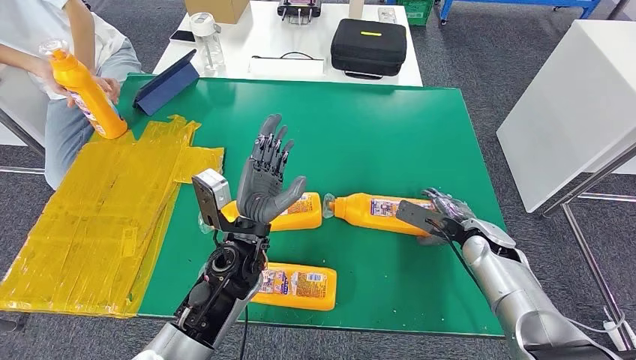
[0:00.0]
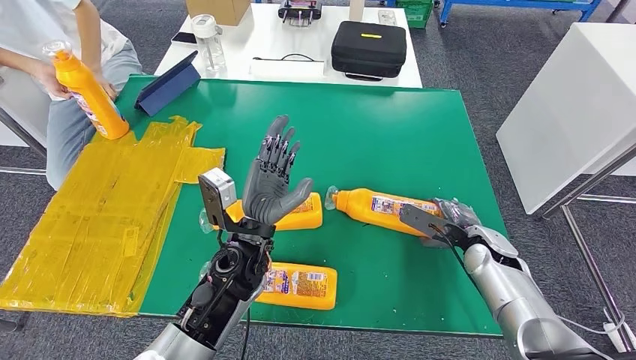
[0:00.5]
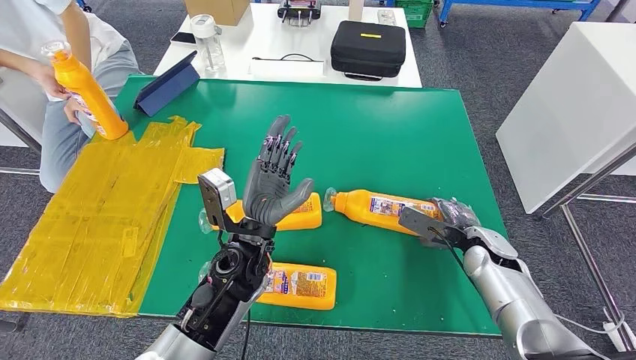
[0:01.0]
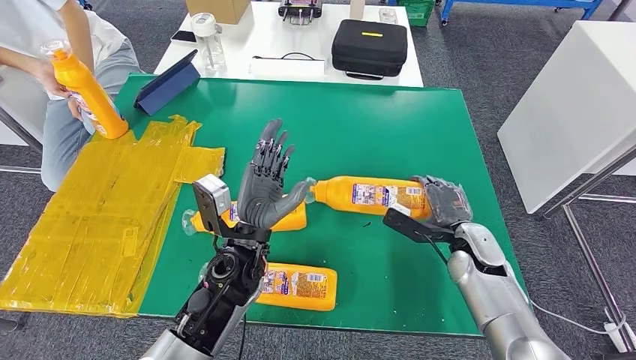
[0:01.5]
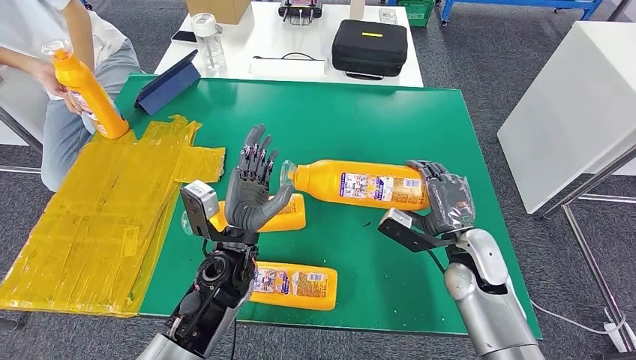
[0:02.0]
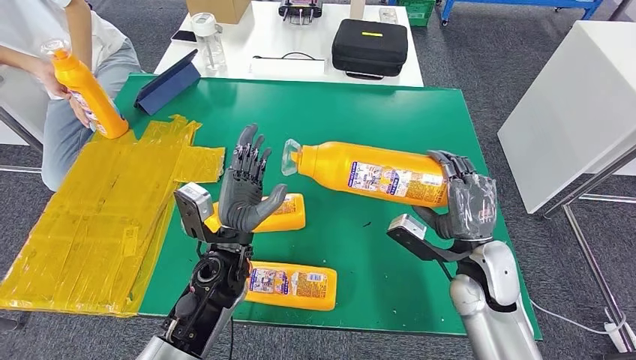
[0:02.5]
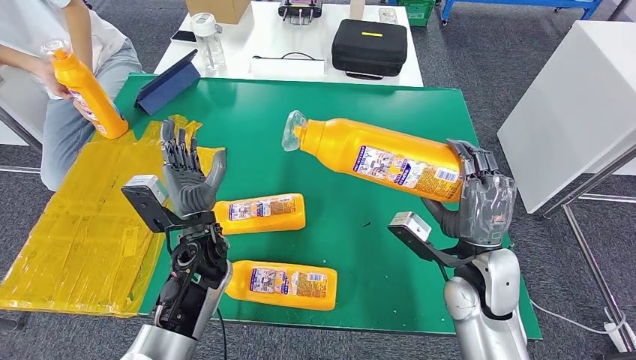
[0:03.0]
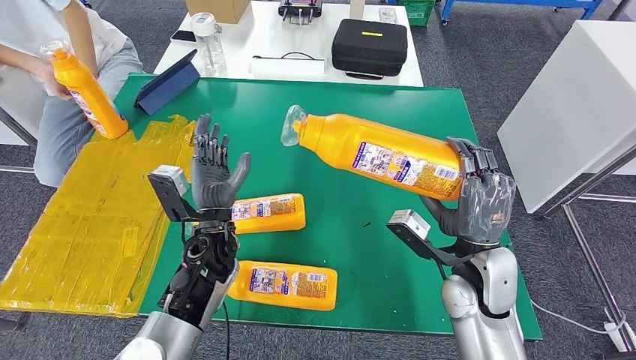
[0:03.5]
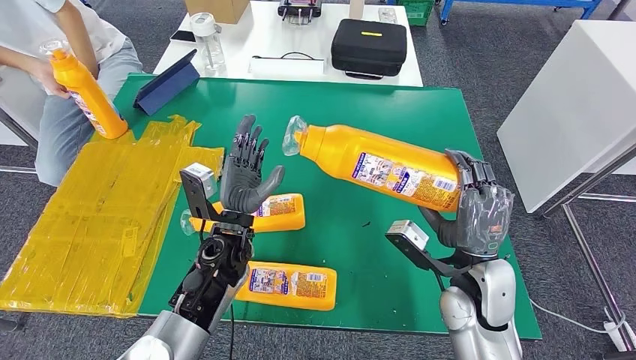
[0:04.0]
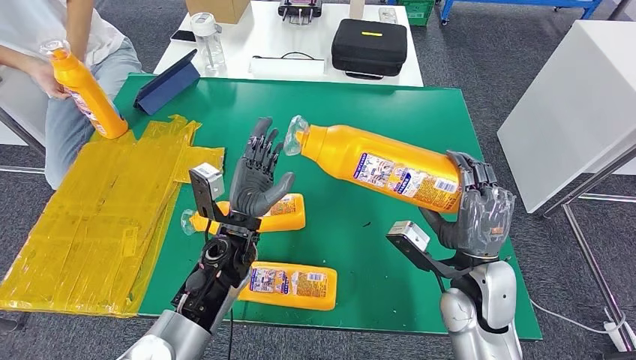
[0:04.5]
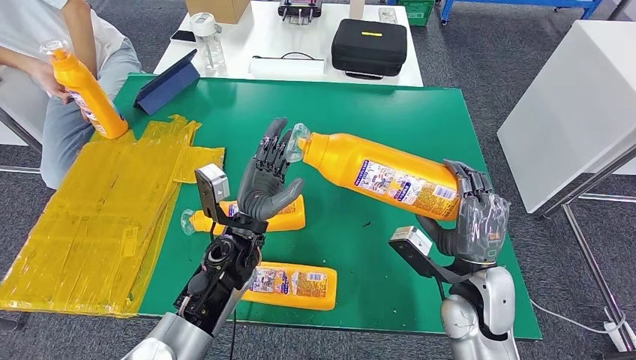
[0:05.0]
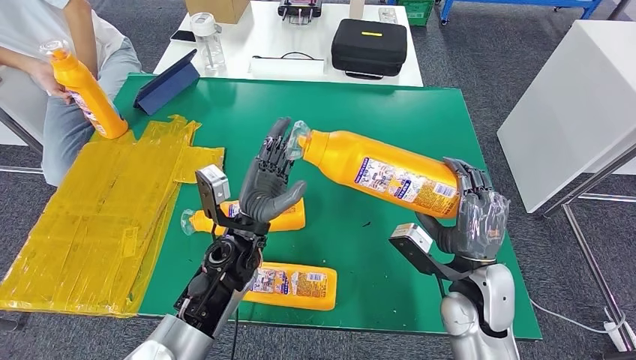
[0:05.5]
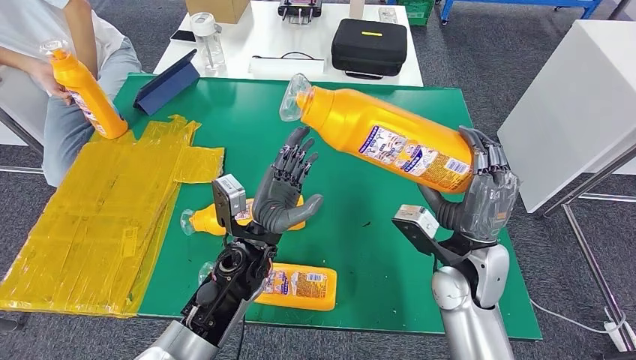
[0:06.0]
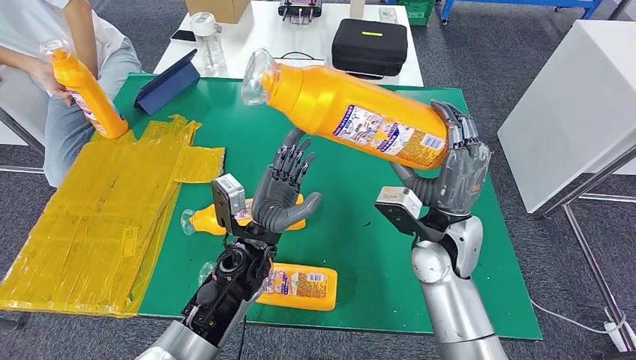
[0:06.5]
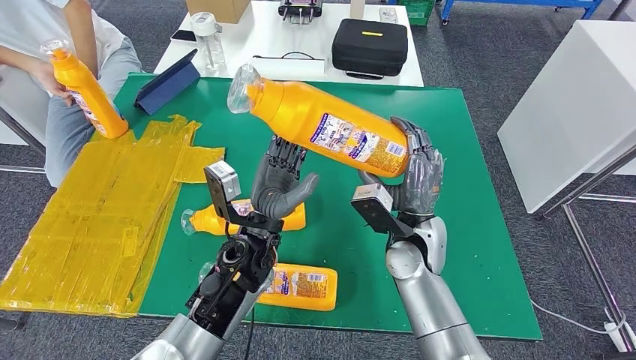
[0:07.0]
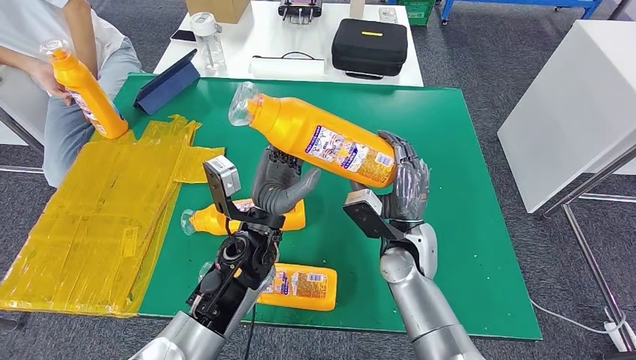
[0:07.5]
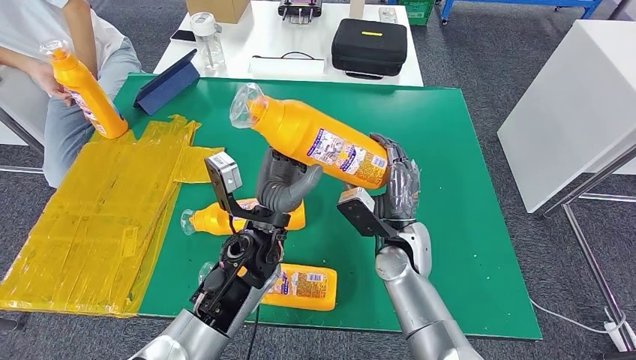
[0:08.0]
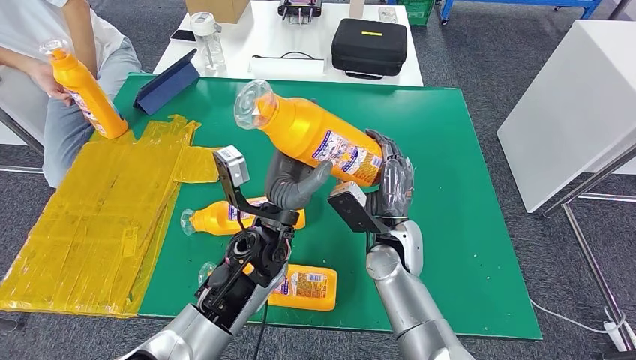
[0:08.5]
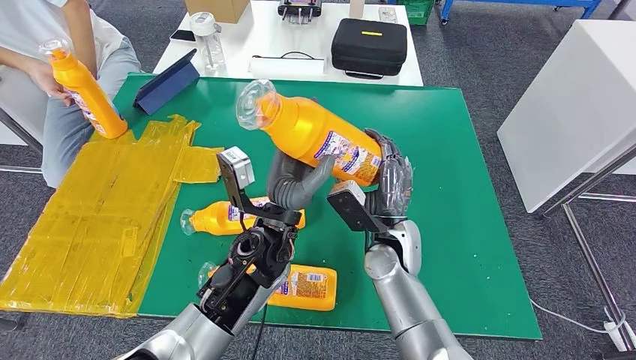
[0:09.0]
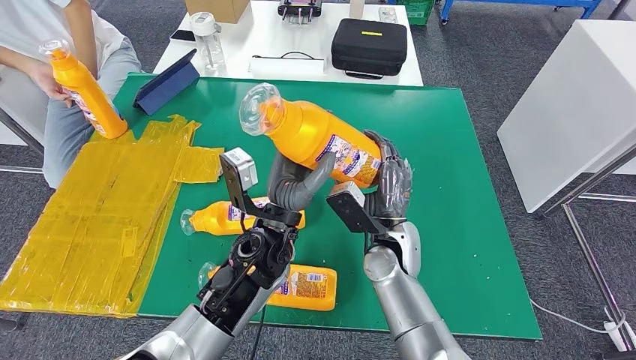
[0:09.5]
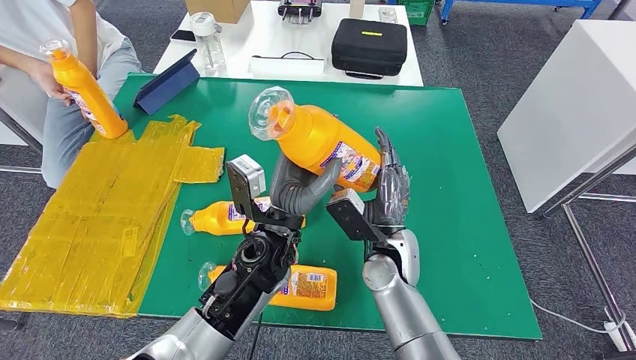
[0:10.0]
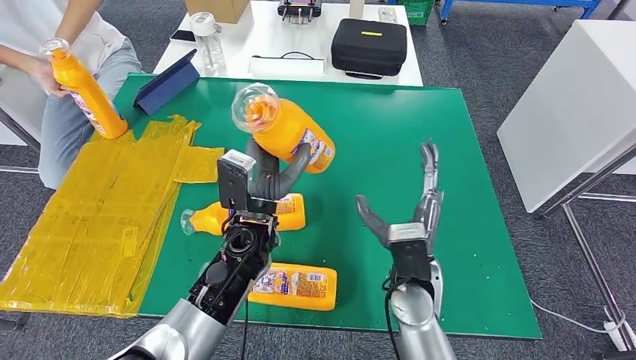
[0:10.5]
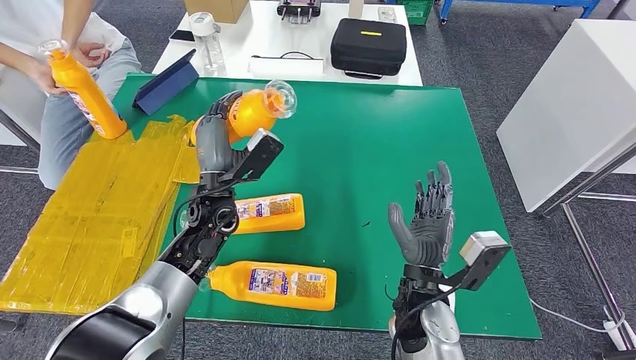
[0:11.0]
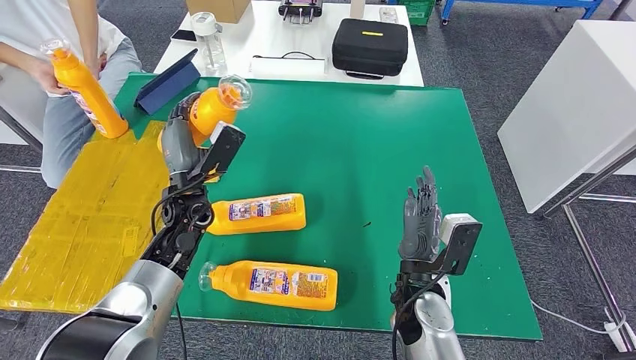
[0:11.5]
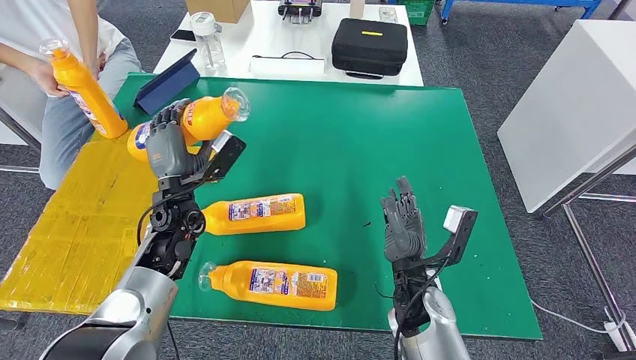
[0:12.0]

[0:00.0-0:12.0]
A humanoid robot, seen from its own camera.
Step, 0:00.0 to 0:04.5: Pick up the bottle from the table.
0:00.0 to 0:02.0: The right hand shifts approximately 5 cm to the left.
0:02.0 to 0:04.0: The right hand shifts by roughly 5 cm.
0:04.0 to 0:06.0: The hands stay close to where they were, moving slightly.
0:06.0 to 0:08.0: The right hand shifts about 10 cm to the left.
0:08.0 to 0:10.0: The hands stay close to where they were, moving slightly.

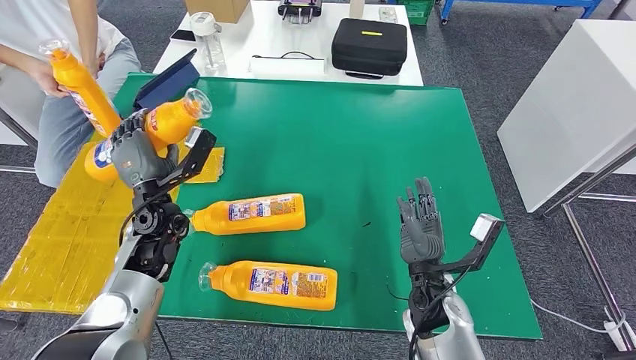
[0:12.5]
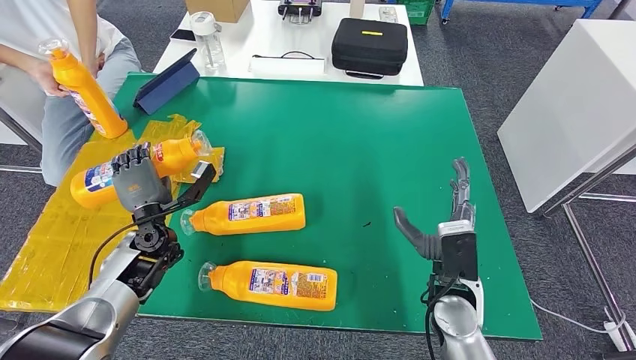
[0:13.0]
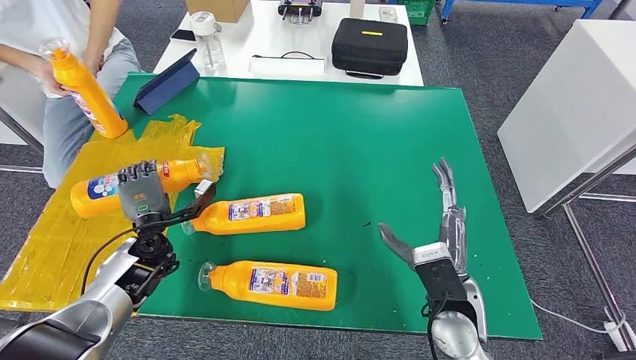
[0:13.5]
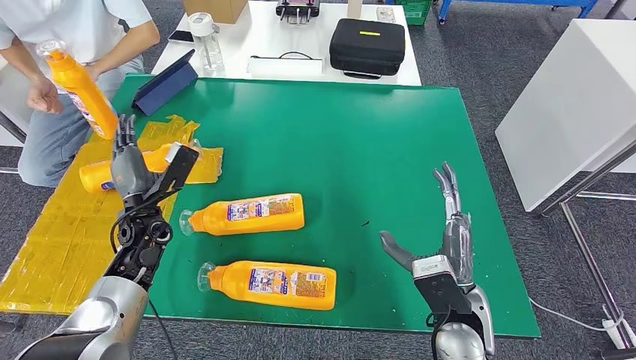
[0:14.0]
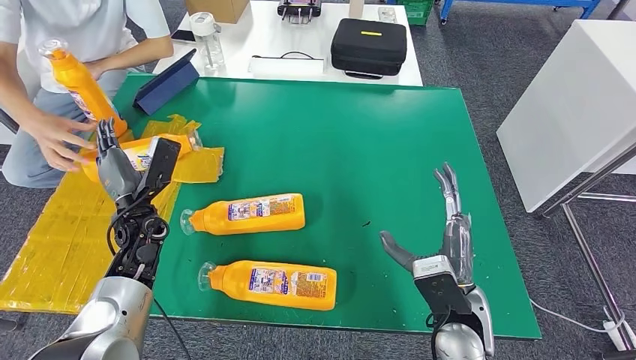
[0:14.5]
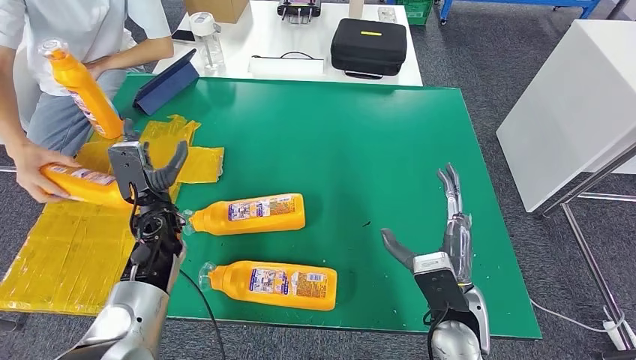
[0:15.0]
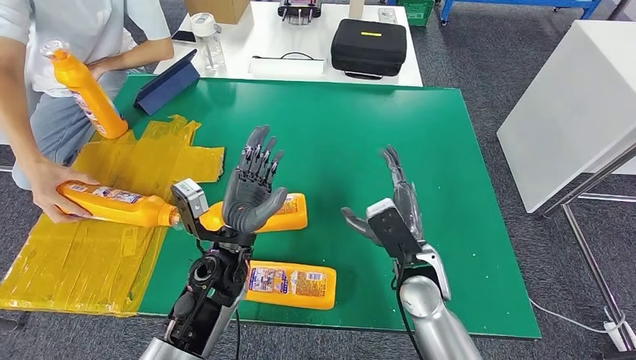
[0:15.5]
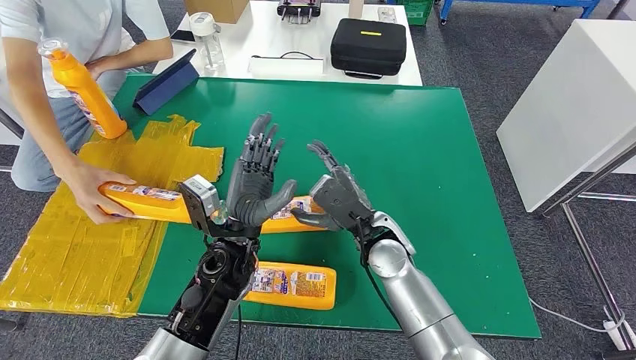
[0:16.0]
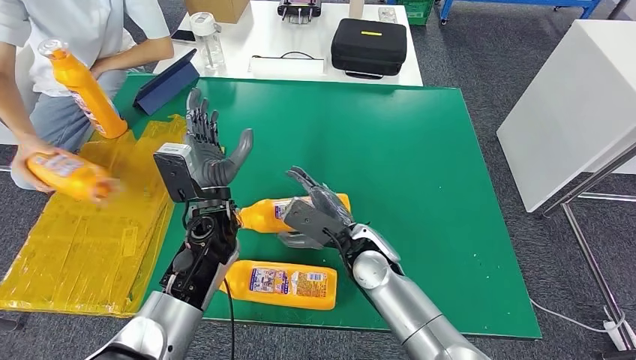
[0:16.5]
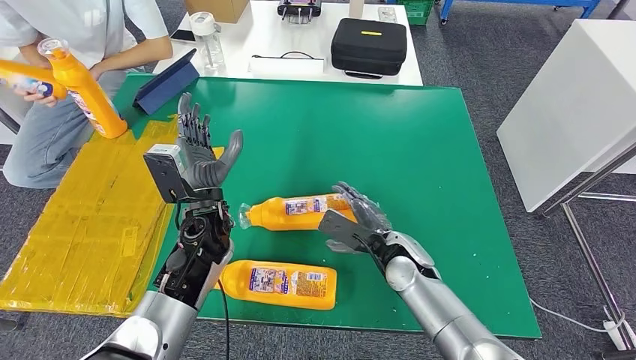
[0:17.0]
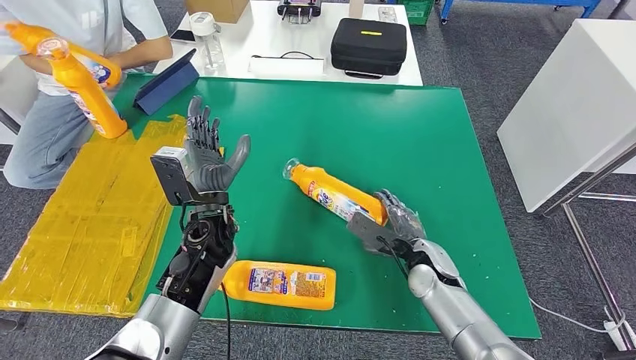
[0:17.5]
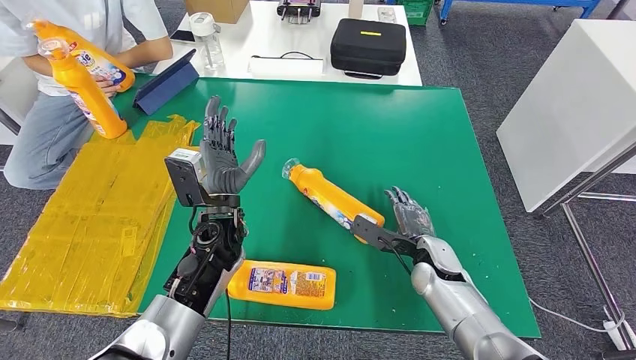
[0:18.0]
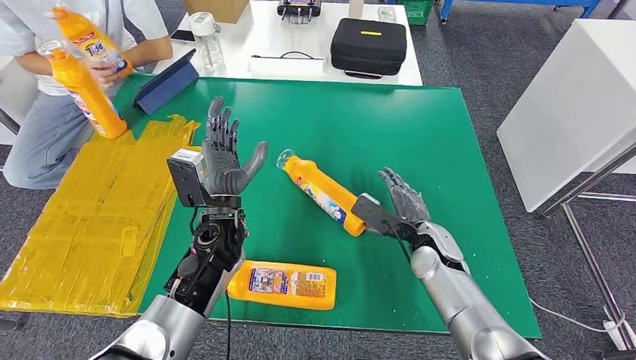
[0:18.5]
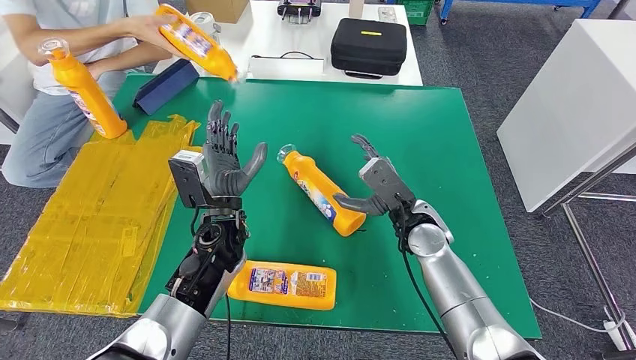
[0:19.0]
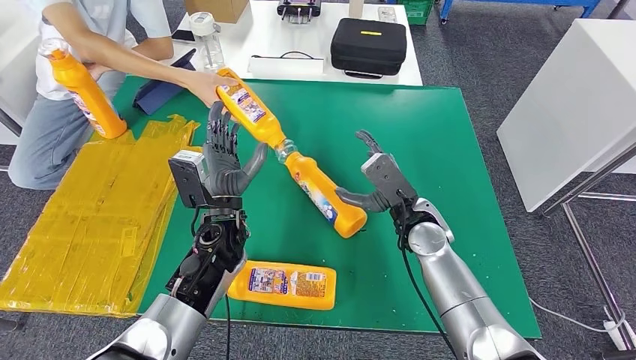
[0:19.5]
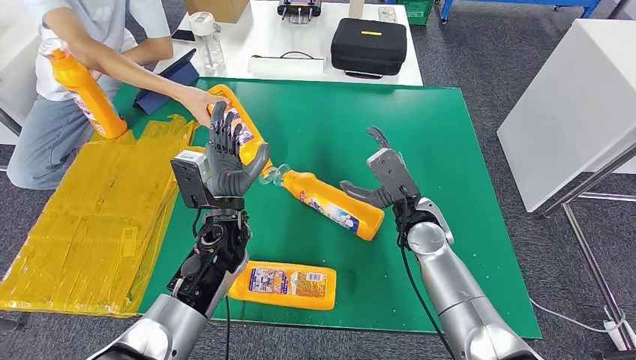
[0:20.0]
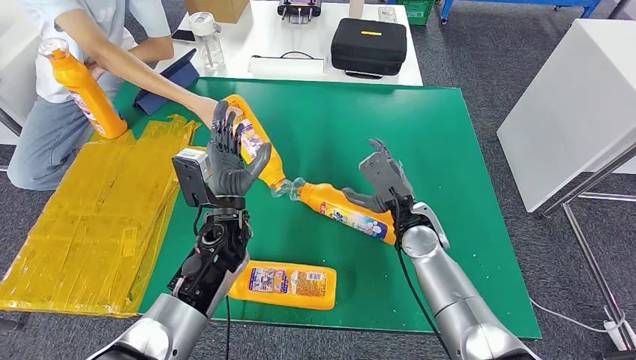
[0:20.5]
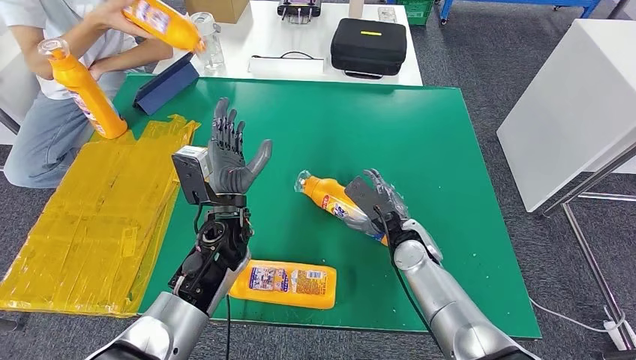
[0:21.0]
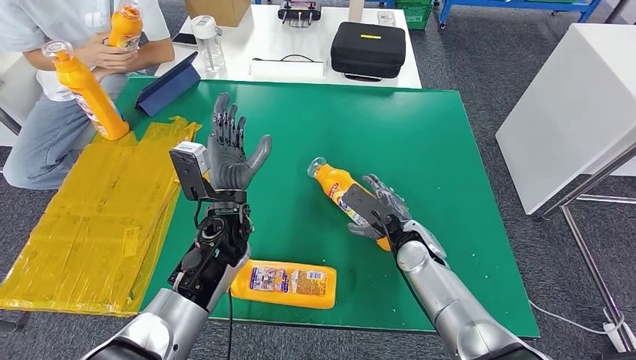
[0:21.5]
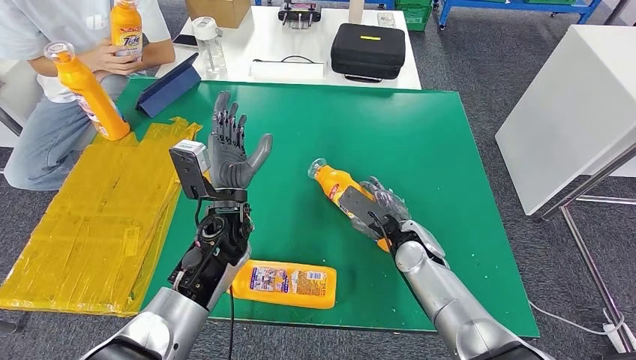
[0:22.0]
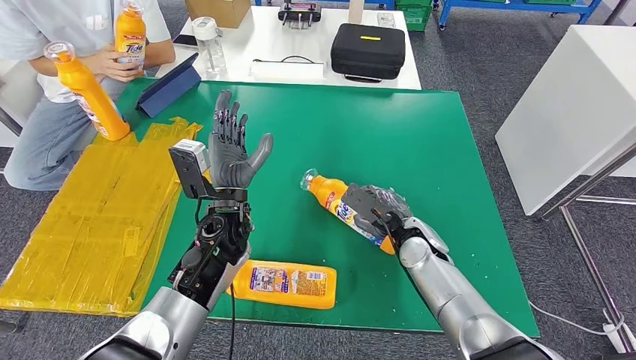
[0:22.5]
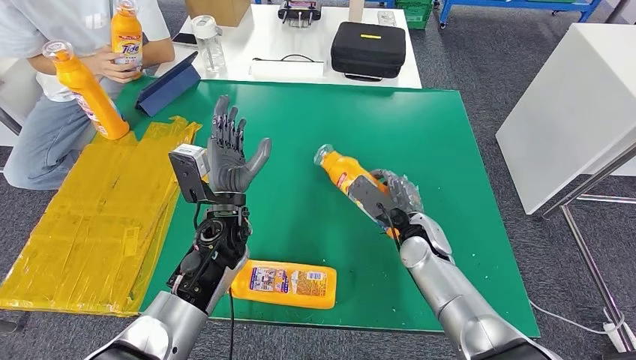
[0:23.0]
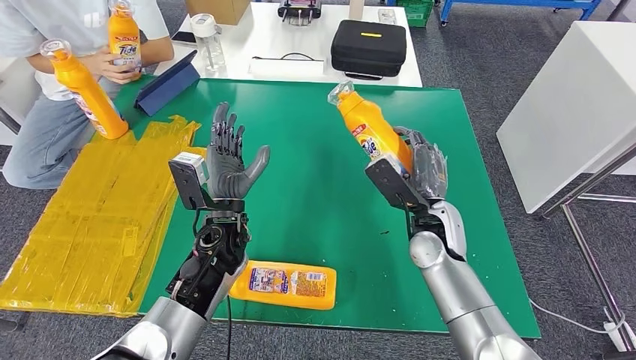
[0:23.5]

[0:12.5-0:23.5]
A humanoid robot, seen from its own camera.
Step, 0:12.5 to 0:15.5: Flip the bottle to face forward.
0:12.5 to 0:14.5: The right hand shifts by about 5 cm.
0:18.0 to 0:20.0: The right hand heads upward and to the left, covering approximately 10 cm.
0:21.5 to 0:23.5: The right hand heads upward, covering roughly 5 cm.
